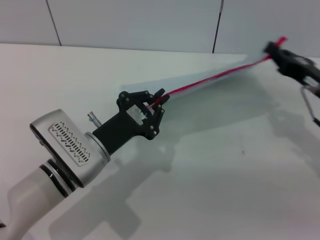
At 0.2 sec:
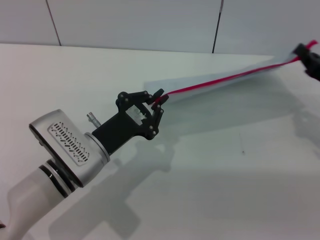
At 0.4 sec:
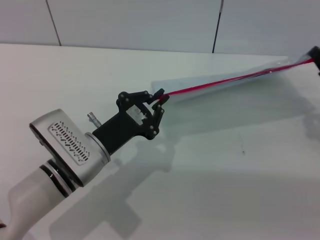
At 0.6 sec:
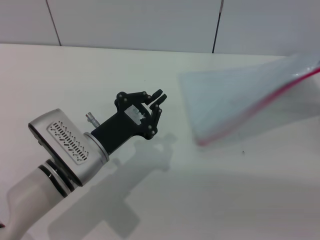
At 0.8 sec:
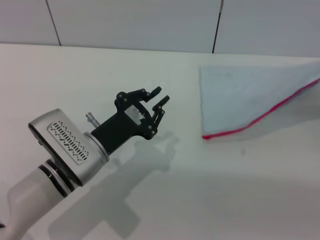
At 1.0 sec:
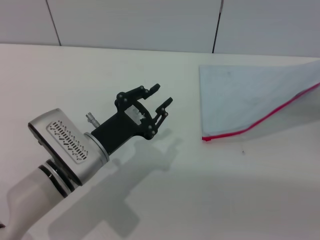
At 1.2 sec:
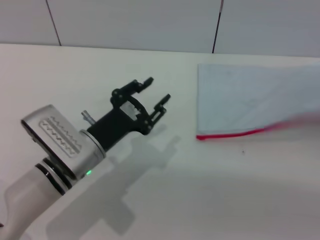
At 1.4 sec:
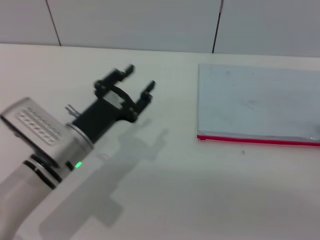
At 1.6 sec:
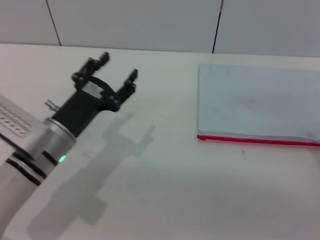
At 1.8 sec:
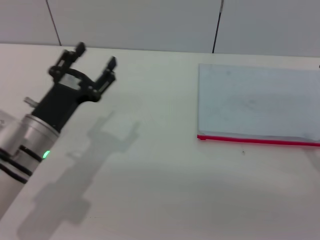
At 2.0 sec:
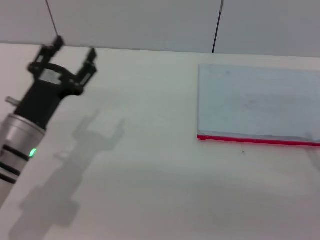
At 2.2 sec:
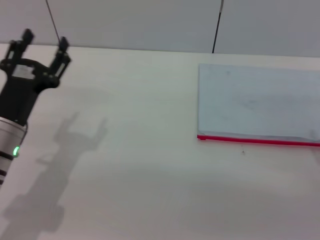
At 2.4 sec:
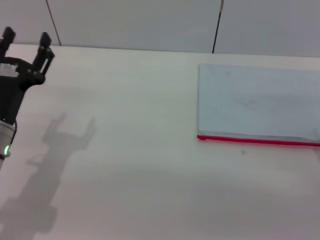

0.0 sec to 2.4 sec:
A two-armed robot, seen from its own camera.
Step, 1.0 sec to 1.4 sec: Place the transparent plastic bag.
0.0 sec to 1.2 sec: The right gripper heads to the right, covering approximately 5 cm.
1.2 sec to 2.4 sec: The right gripper changes place by about 5 cm, and opens up, while the left gripper is displaced to the left by roughly 10 cm, and opens up.

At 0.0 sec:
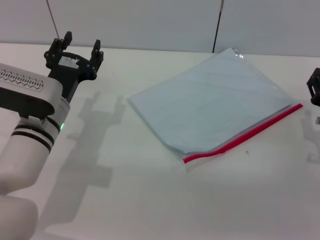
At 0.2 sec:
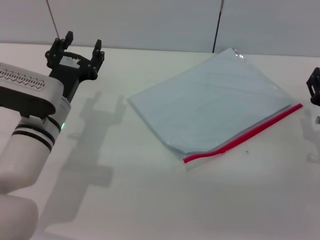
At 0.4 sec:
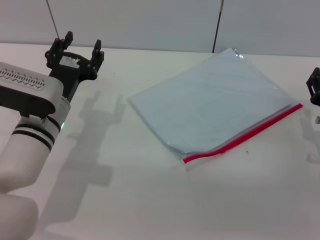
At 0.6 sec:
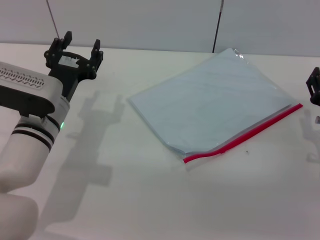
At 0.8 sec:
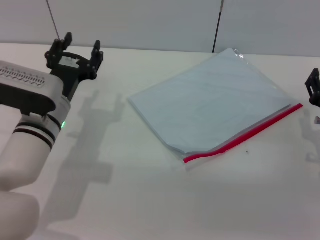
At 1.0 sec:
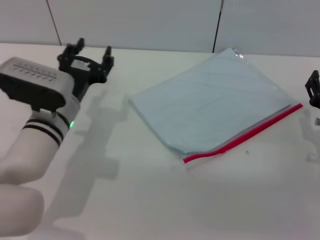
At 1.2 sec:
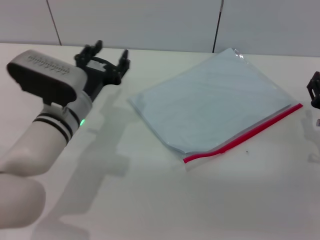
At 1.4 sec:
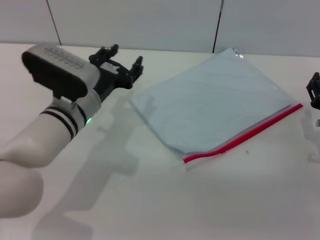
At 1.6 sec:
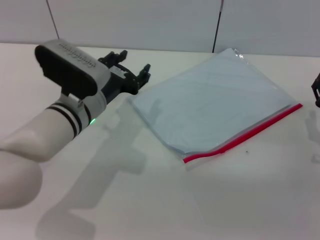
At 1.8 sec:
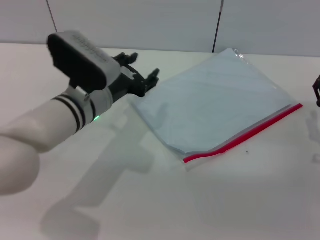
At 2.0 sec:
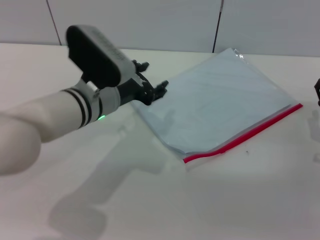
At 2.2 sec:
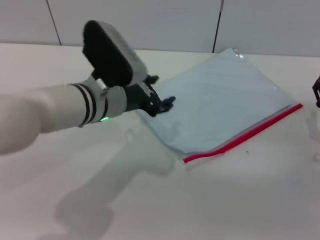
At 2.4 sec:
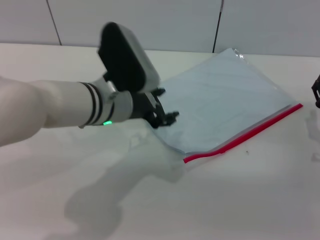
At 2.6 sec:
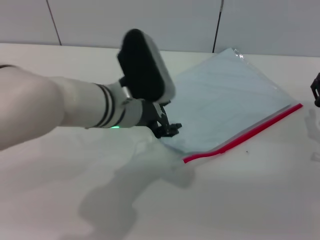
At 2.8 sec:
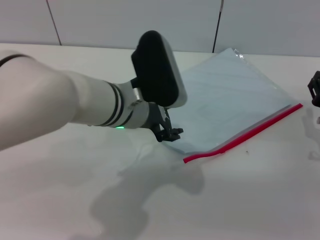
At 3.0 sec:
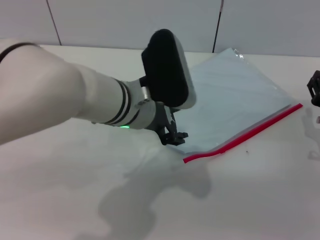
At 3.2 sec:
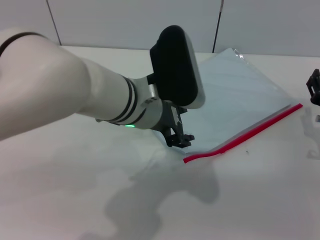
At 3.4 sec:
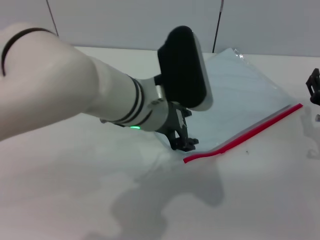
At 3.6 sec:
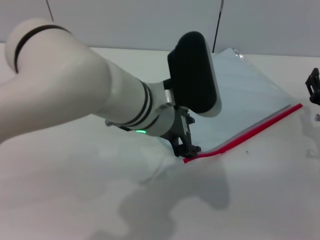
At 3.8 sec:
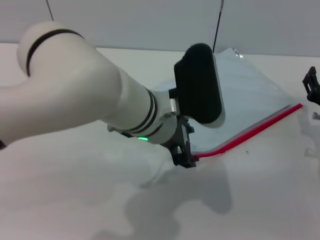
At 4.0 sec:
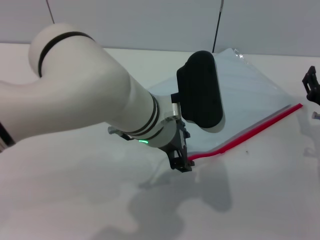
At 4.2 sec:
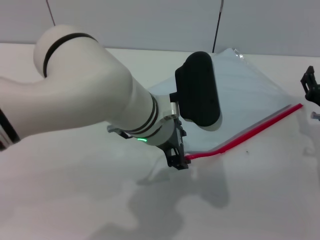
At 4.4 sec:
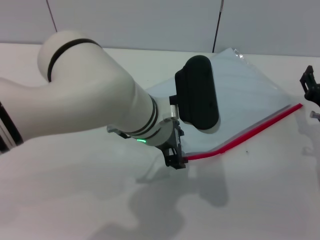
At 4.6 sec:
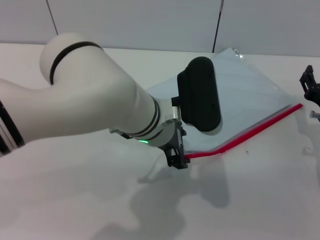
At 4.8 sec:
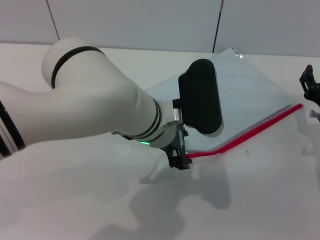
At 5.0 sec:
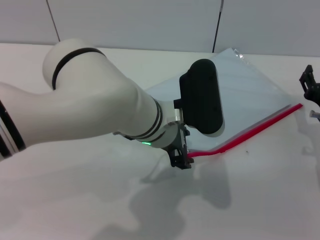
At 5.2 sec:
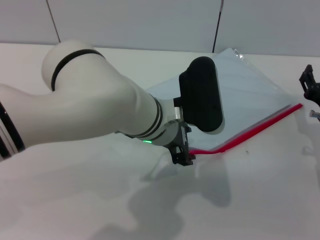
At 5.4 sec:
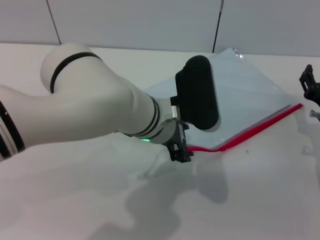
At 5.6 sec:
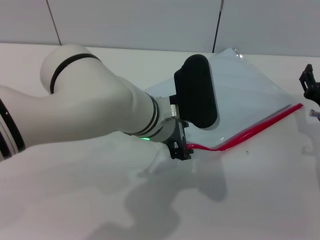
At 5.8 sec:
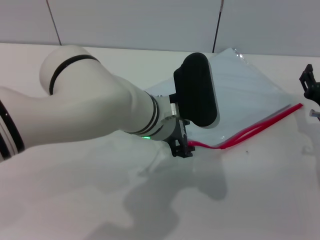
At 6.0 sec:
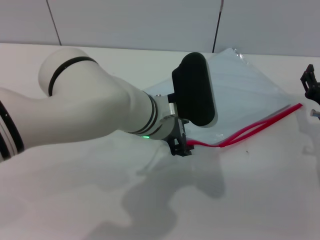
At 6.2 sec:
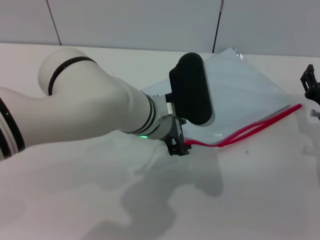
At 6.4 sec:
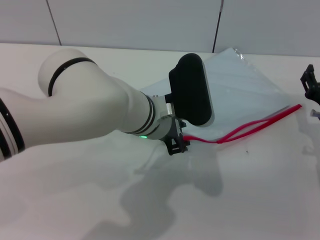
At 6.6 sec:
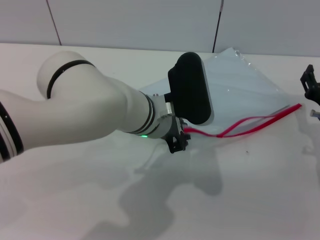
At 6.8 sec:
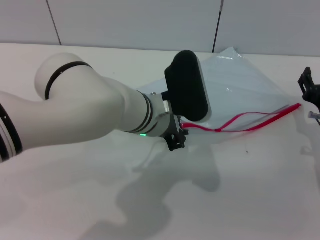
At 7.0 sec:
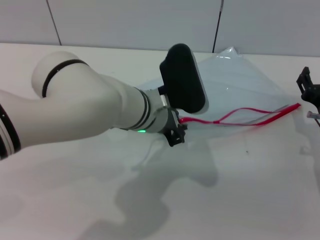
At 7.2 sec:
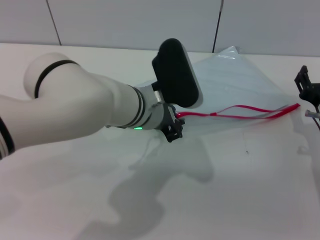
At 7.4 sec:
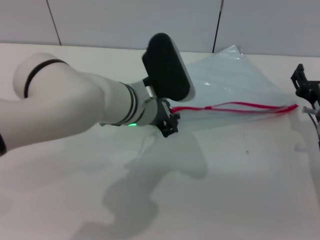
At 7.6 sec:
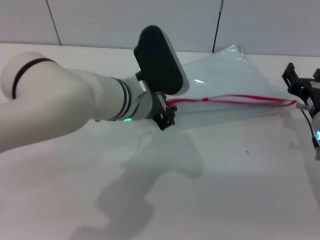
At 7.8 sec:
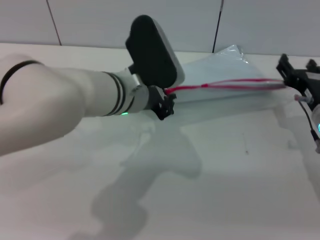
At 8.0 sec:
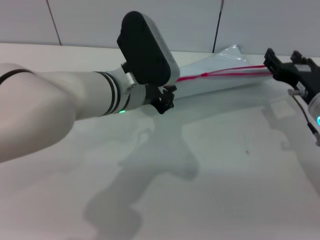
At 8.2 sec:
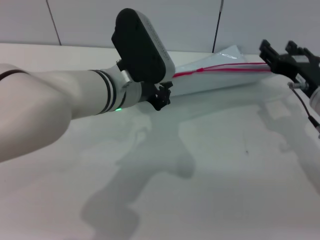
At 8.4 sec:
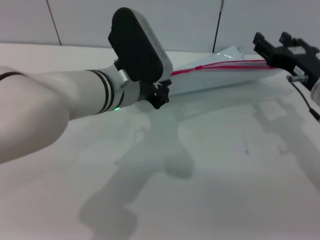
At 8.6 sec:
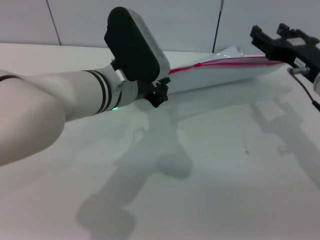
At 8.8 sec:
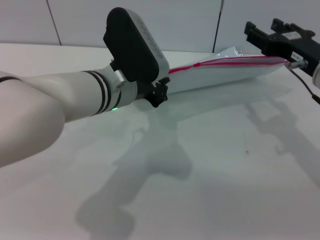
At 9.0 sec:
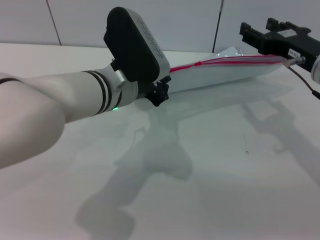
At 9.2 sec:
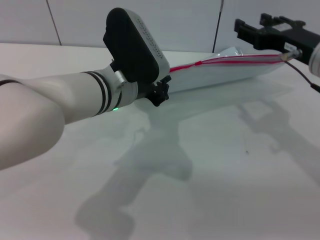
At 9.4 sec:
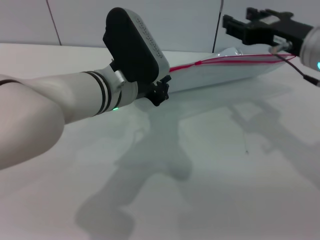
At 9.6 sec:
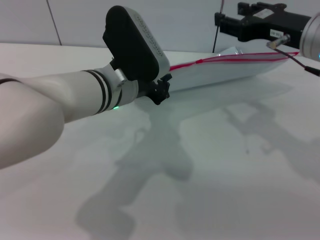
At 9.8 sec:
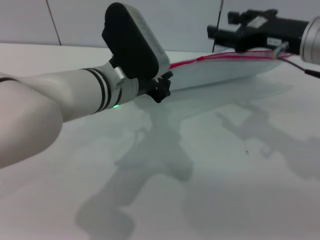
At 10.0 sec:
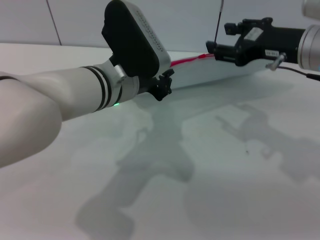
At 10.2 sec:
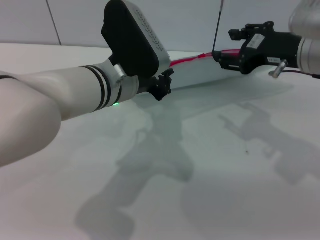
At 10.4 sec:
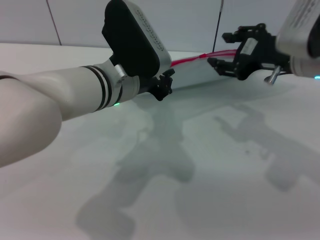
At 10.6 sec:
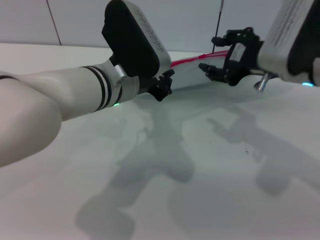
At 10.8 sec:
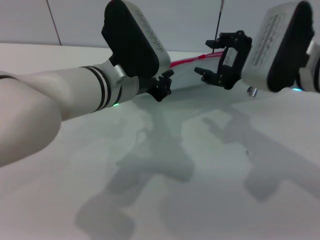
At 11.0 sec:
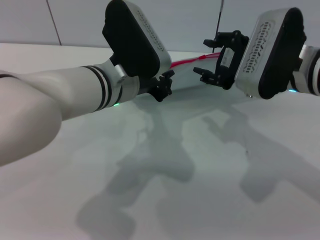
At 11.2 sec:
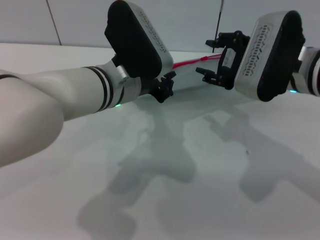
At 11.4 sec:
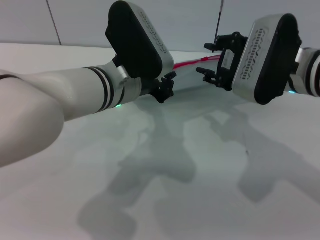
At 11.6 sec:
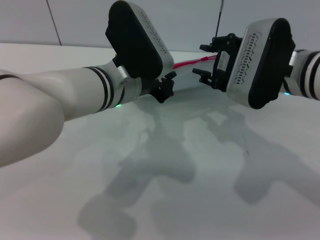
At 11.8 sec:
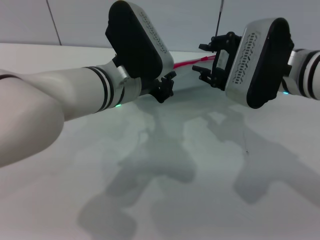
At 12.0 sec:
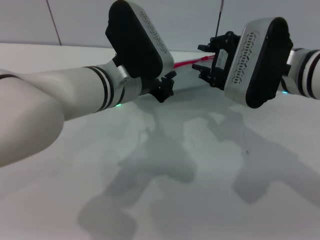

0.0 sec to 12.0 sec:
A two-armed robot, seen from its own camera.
Step, 0.0 sec to 8.2 sec: Pick up the transparent plastic bag with the left gripper.
1.6 sec to 3.0 sec: The left gripper moves to the right and upward, about 10 cm.
3.0 sec to 6.0 sec: There are only small adjustments of the grippers.
6.0 sec to 7.6 sec: The left gripper closes up.
7.6 sec to 9.0 sec: The right gripper is displaced upward by about 10 cm.

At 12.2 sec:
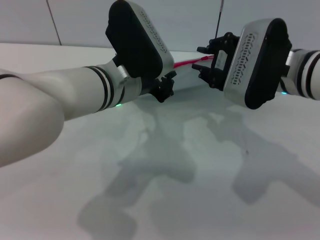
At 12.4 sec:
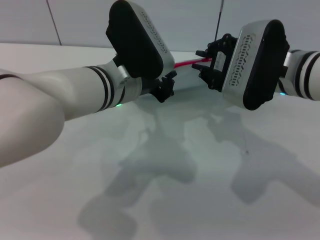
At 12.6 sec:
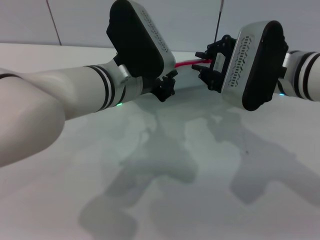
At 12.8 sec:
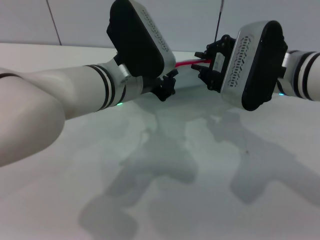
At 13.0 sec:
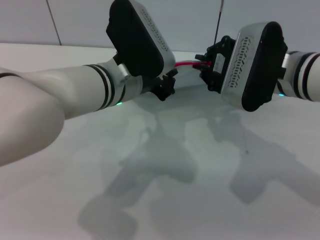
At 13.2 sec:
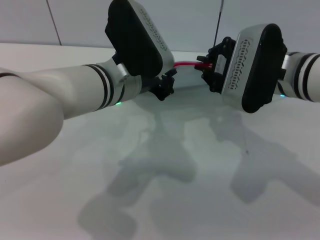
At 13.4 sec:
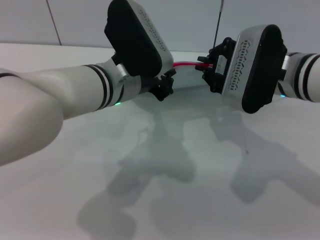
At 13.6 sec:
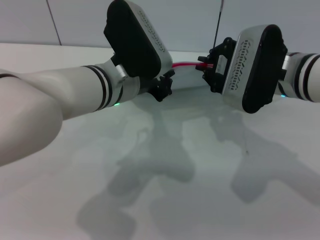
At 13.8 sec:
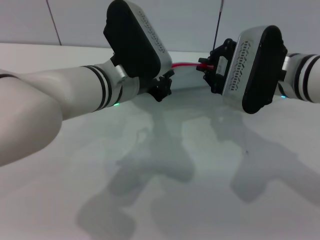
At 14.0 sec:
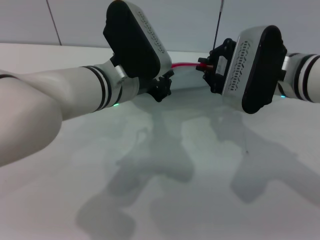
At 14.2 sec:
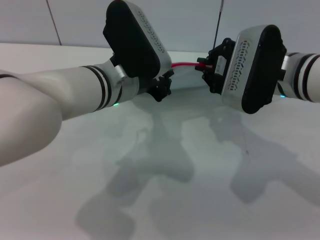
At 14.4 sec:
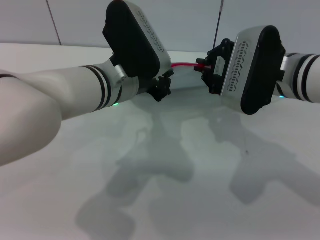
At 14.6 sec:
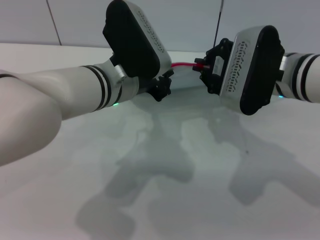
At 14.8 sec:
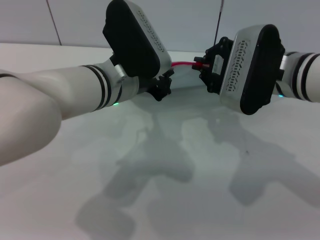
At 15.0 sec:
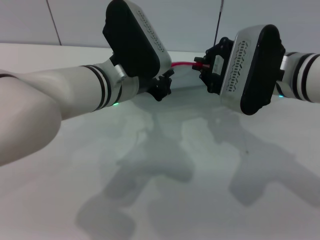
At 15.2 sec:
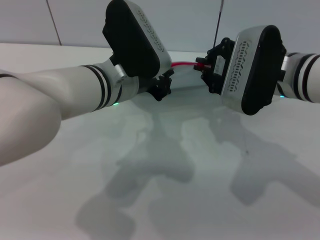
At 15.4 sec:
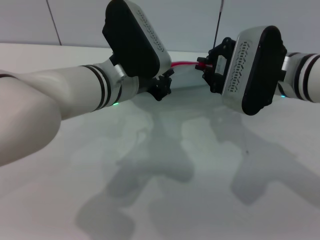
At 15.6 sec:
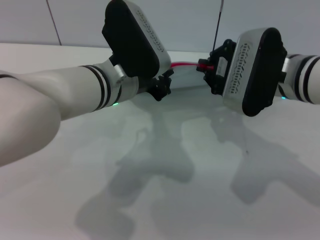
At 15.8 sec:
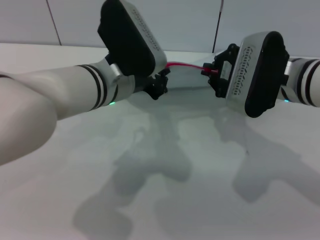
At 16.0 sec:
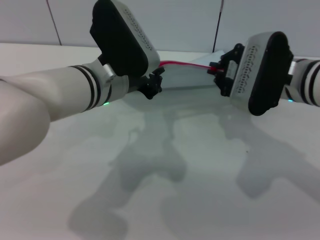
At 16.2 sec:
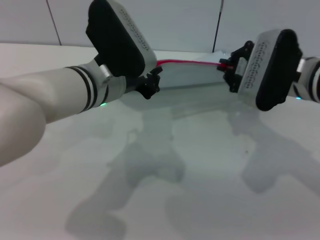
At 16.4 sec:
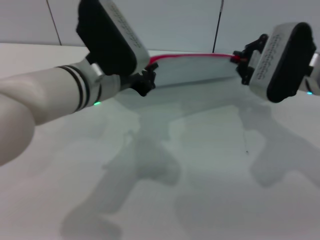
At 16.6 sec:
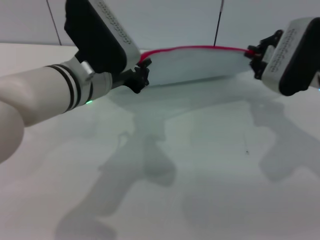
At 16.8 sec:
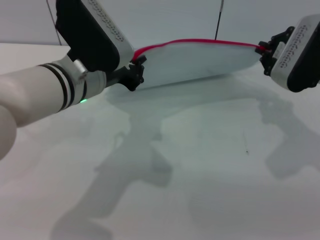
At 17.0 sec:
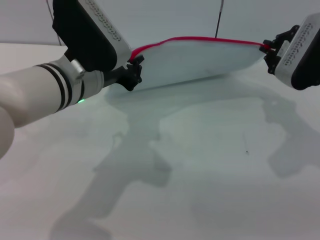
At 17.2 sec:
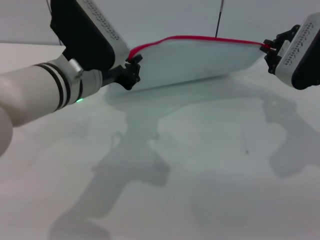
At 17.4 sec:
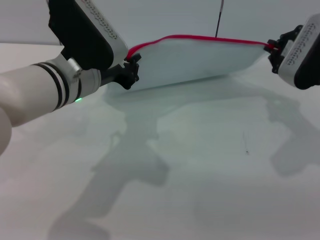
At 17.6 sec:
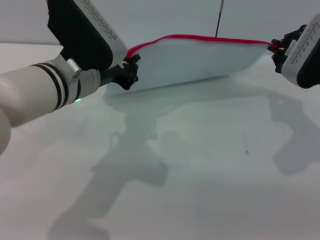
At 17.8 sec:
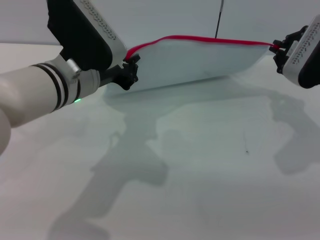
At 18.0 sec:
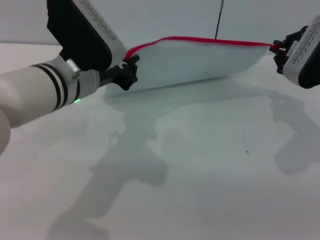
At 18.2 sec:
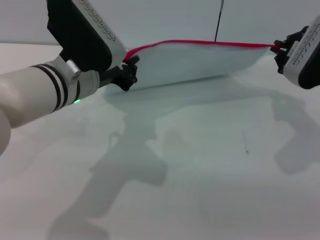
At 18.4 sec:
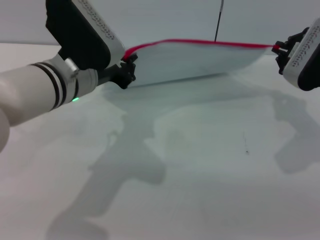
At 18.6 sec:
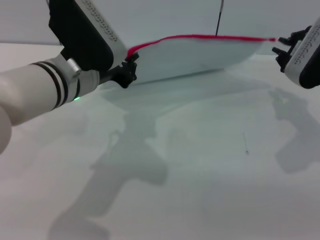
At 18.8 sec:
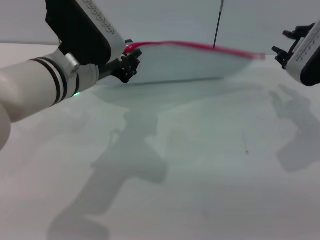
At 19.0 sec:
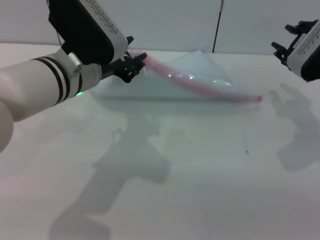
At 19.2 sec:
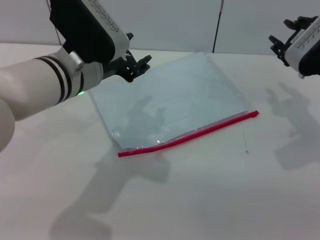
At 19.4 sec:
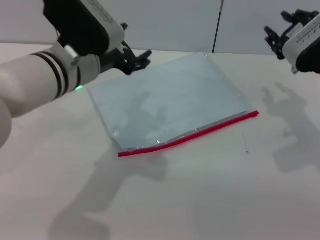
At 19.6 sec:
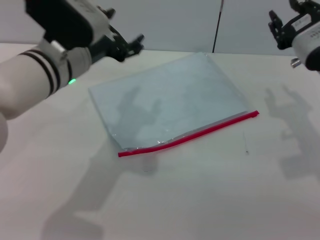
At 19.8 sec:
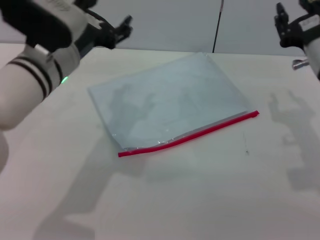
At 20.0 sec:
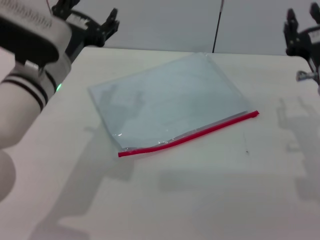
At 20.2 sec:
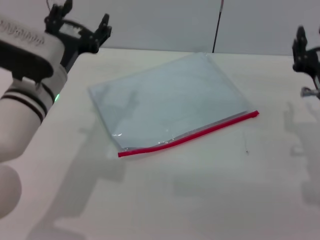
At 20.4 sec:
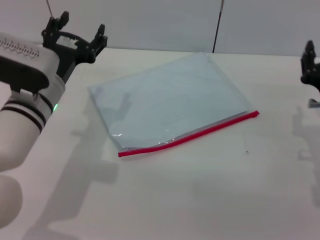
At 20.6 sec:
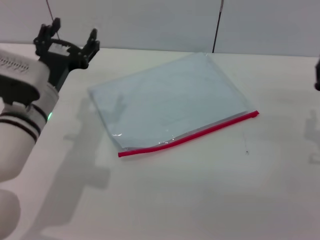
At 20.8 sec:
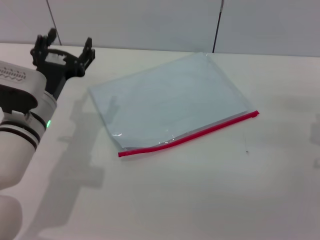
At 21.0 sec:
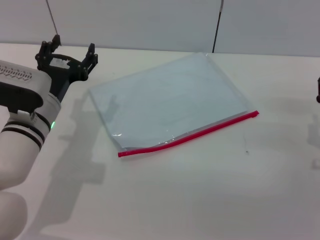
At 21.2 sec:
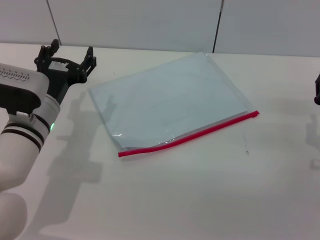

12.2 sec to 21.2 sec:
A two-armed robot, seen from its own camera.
Step, 12.2 sec to 18.6 sec: Pulling up the zipper on the transparent plastic bag with the right gripper to close it.
Step, 18.8 sec to 19.2 sec: Place the transparent plastic bag.
12.2 sec to 13.8 sec: The right gripper closes.
13.8 sec to 15.2 sec: The two grippers keep their place.
15.2 sec to 16.6 sec: The right gripper shifts roughly 5 cm to the right.
16.6 sec to 18.2 sec: The grippers stay close to where they were, moving slightly.
18.2 sec to 19.8 sec: The left gripper opens up. Meanwhile the right gripper changes place by about 5 cm, and opens up.
19.8 sec to 21.2 sec: The right gripper heads downward and backward, covering roughly 10 cm; the left gripper heads downward, covering about 10 cm.
